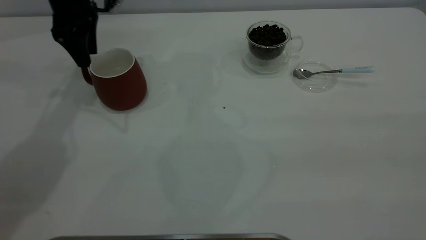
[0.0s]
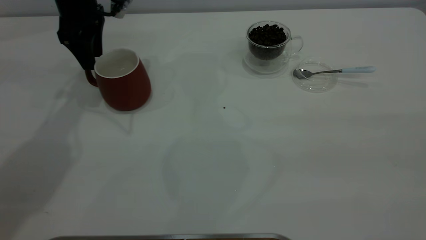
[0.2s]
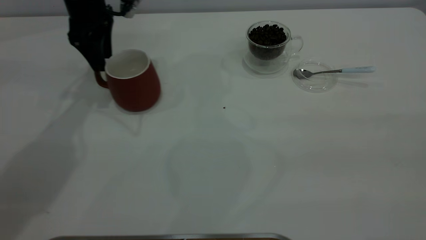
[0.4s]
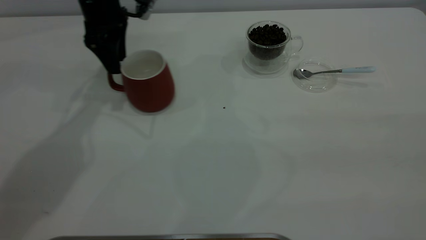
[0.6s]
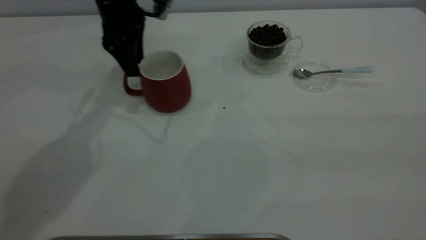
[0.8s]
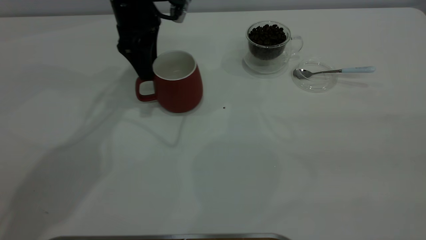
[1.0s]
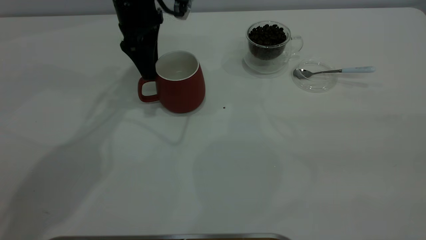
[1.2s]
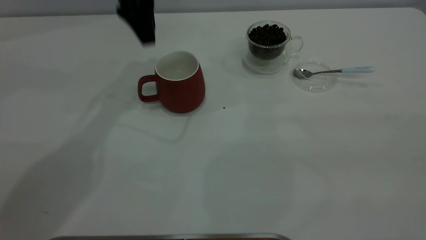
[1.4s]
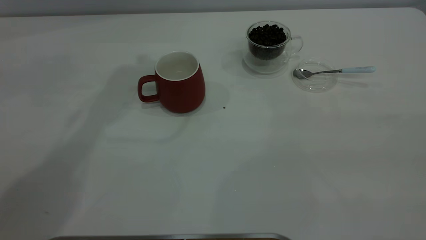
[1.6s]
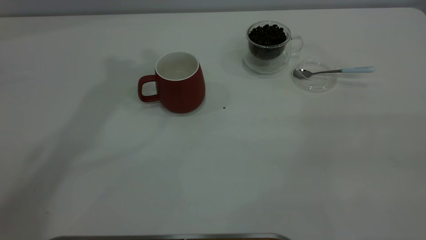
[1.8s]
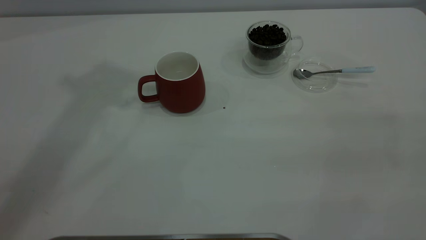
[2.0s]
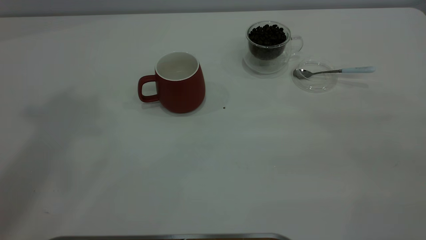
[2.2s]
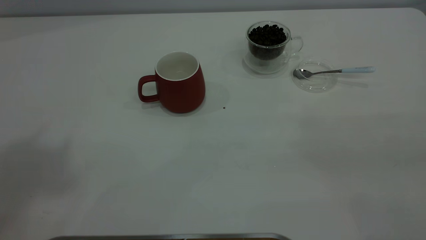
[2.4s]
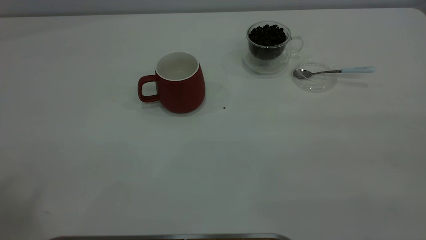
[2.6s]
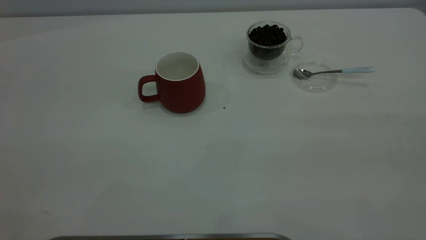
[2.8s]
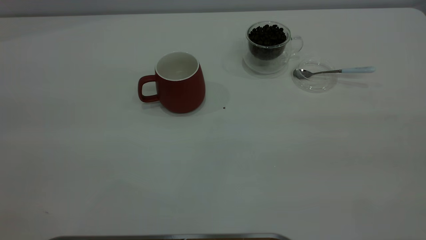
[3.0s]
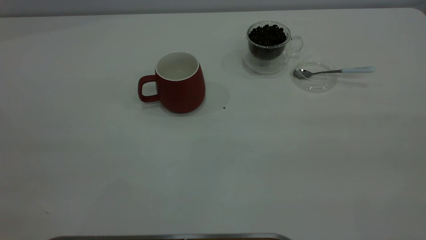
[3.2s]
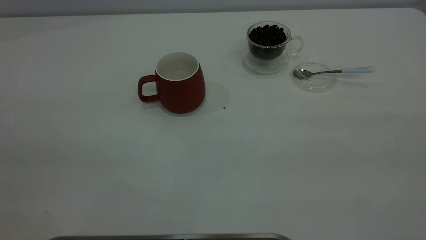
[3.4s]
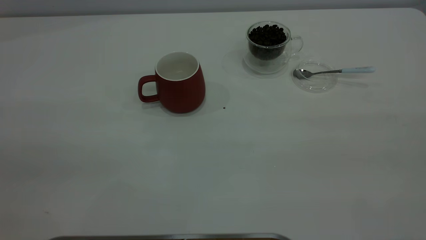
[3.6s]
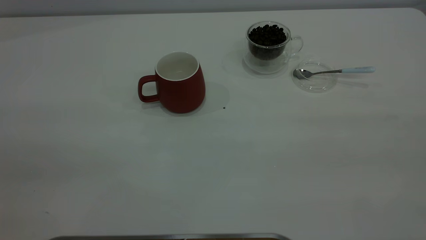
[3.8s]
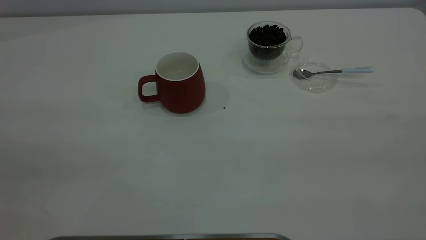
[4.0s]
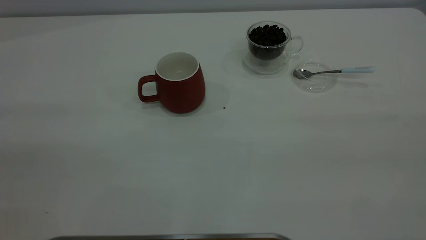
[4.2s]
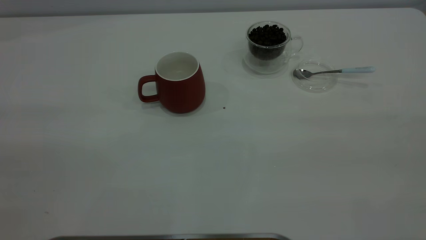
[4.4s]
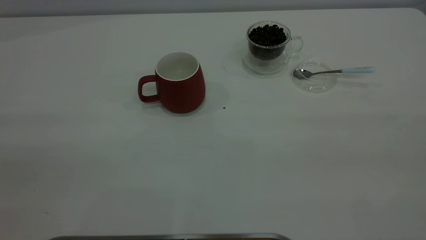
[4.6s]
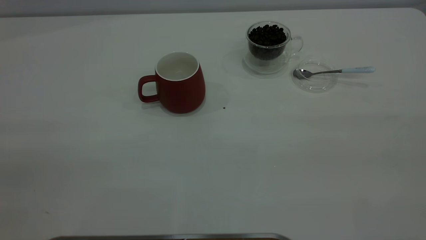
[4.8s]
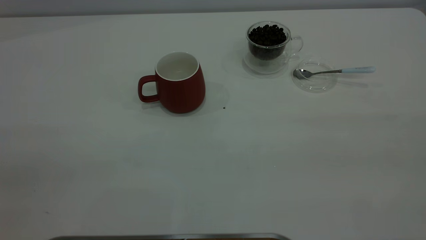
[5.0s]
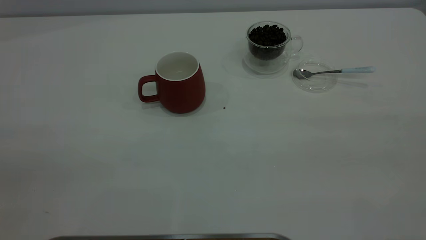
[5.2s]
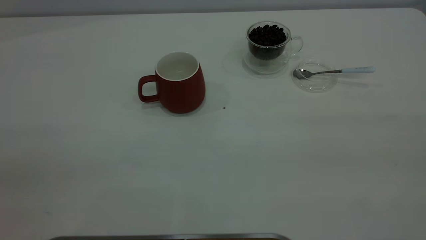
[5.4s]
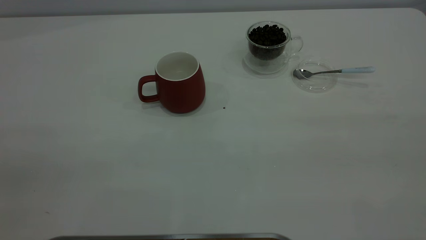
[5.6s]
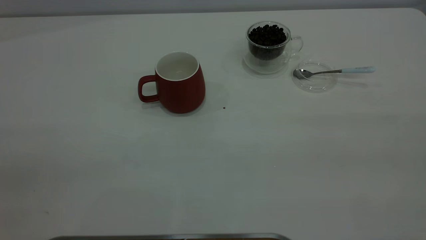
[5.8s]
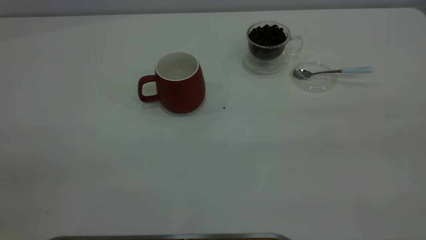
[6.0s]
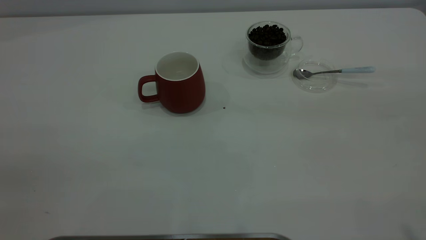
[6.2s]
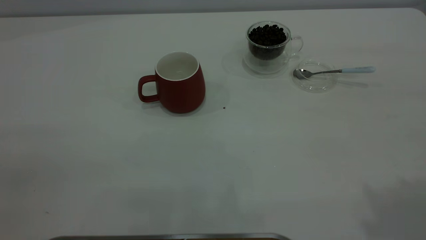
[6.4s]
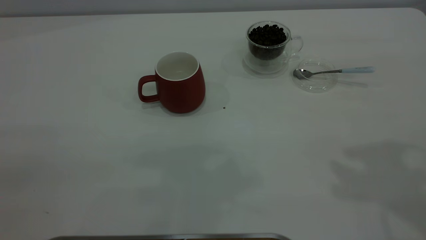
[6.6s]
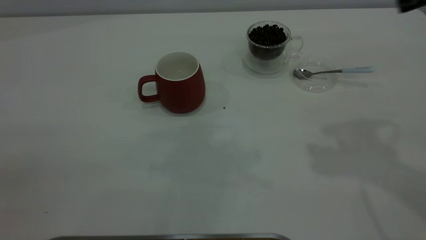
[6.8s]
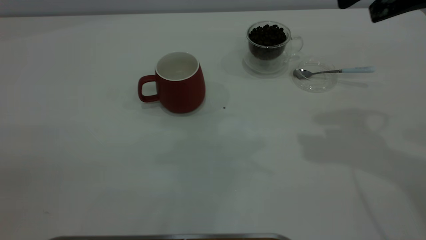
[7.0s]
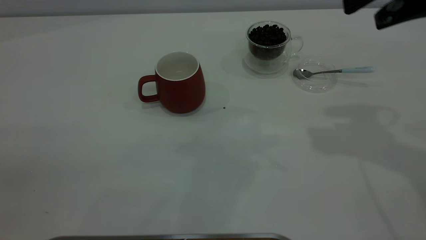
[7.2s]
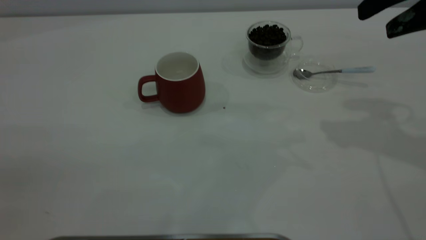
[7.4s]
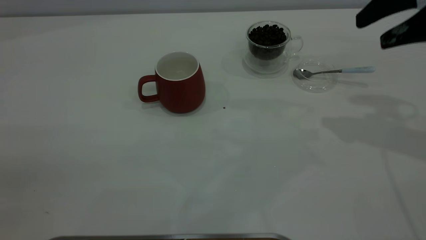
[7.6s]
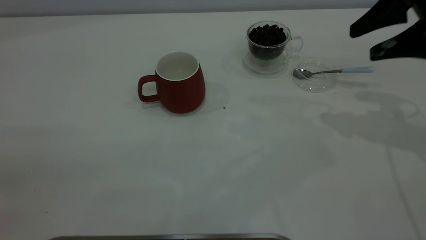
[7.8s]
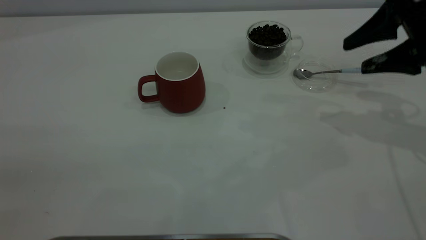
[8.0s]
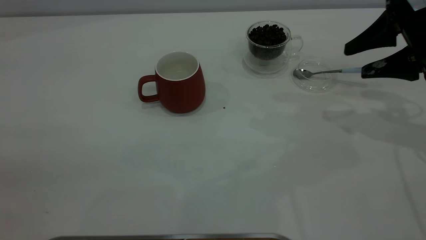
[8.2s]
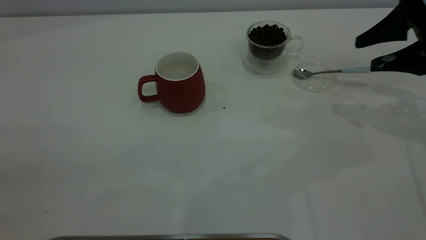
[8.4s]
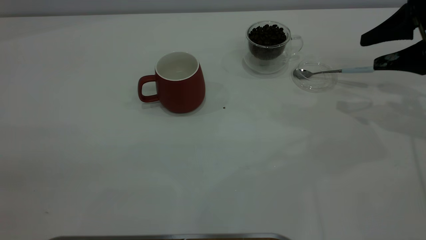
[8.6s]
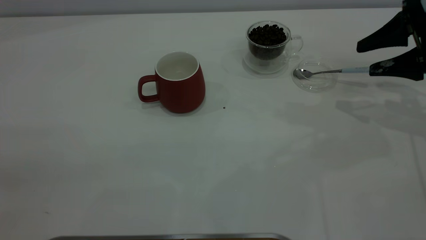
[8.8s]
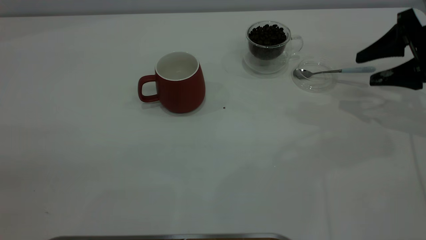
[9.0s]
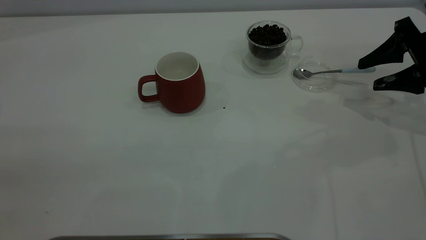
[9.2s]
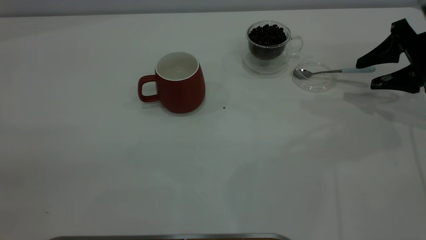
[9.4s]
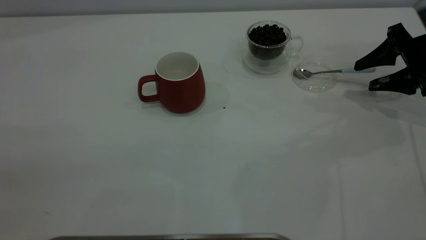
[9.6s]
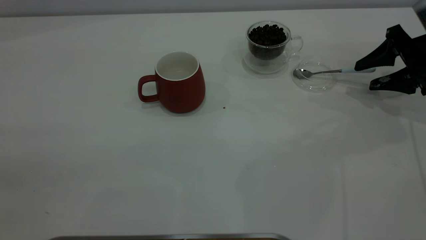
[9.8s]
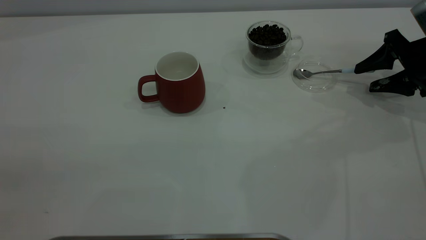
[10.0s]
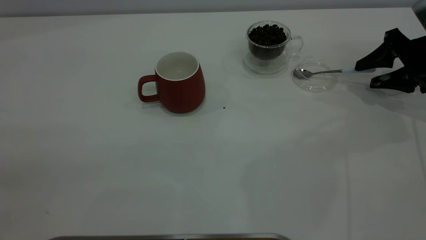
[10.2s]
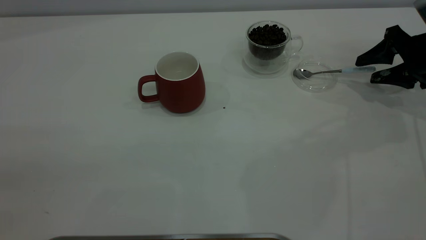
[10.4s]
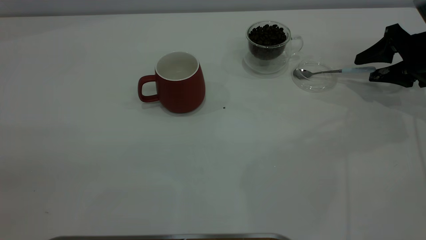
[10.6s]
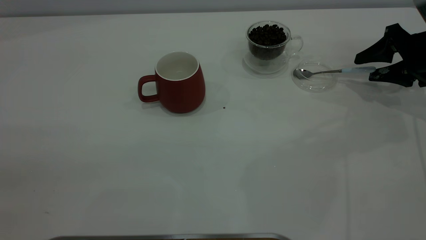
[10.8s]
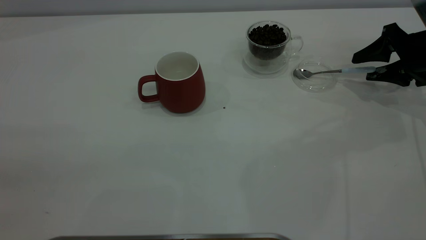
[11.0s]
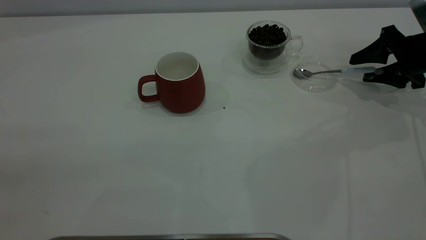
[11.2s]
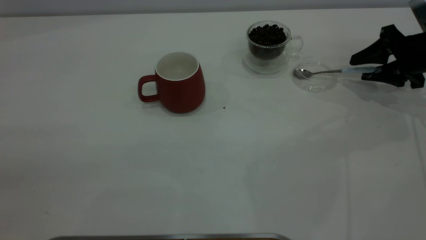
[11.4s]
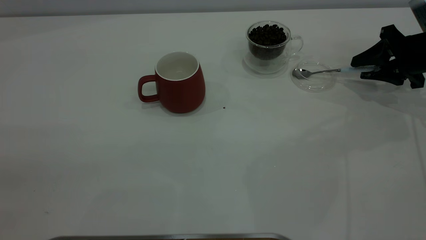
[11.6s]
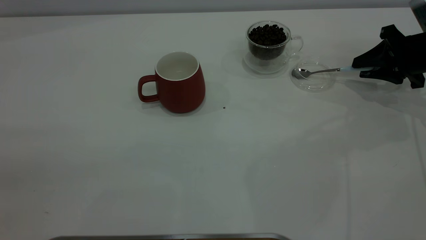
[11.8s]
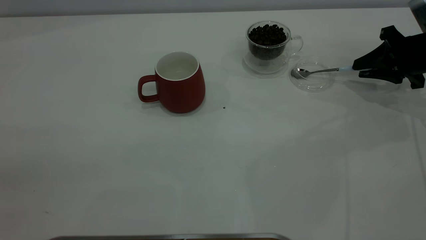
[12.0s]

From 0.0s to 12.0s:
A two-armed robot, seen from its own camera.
Task of the whole recording: the left gripper place the red cup in the center of the table, the right gripper take the blue spoon from the cup lid and scoop out the coffee beans from the coffee cup and put them into the red cup, the right gripper put the spoon back into the cup lid.
From 0.0s to 1.6s: The left gripper moves upward and to the right, some 20 cm.
From 6.0s to 7.6s: The right gripper moves forward and downward, about 35 cm.
From 7.6s to 9.0s: The right gripper shifts roughly 15 cm downward and to the right.
From 9.0s to 10.4s: The right gripper shifts by some 5 cm.
From 10.4s to 12.0s: The right gripper closes up.

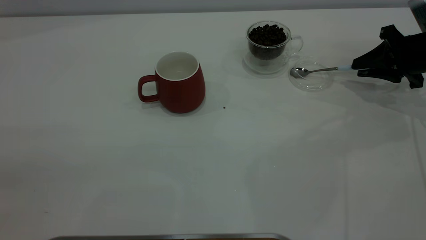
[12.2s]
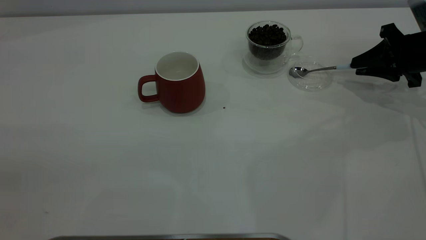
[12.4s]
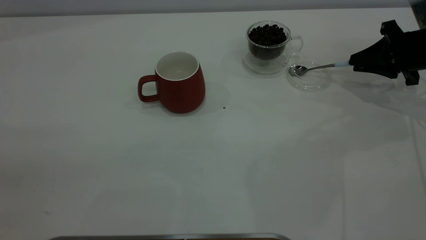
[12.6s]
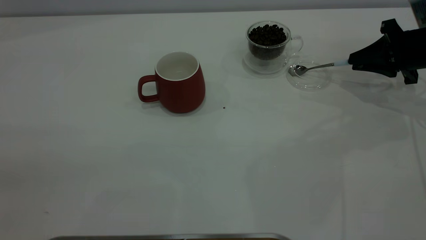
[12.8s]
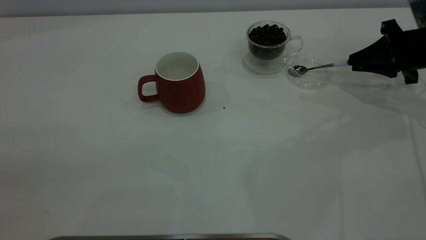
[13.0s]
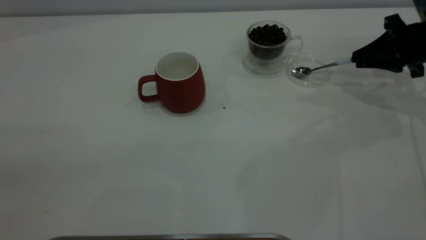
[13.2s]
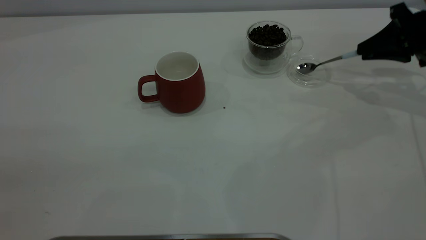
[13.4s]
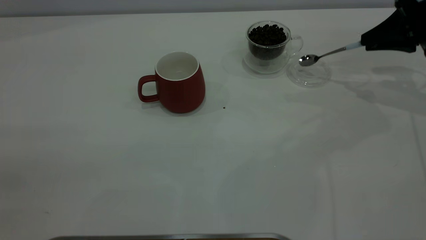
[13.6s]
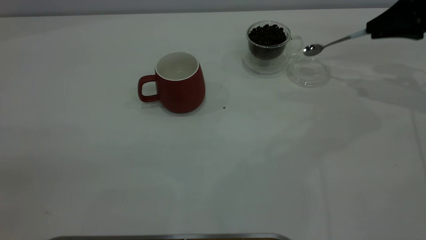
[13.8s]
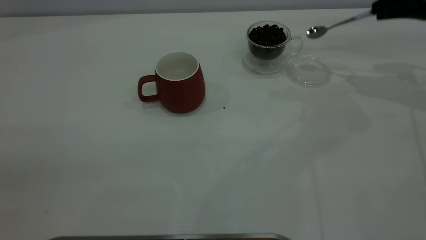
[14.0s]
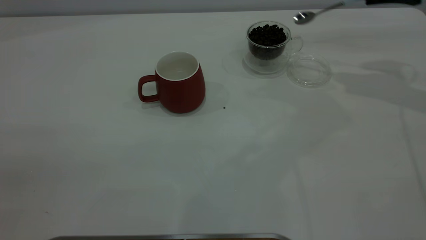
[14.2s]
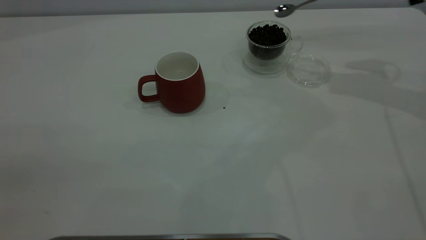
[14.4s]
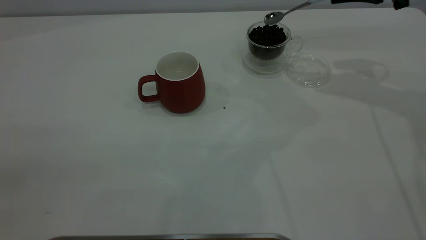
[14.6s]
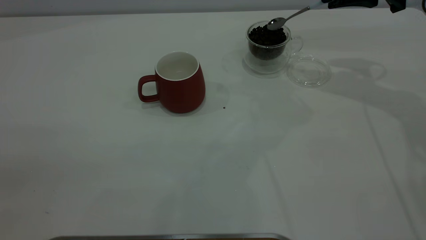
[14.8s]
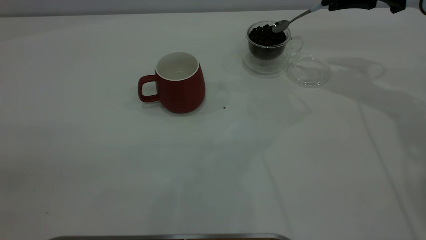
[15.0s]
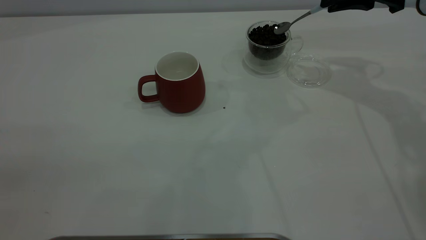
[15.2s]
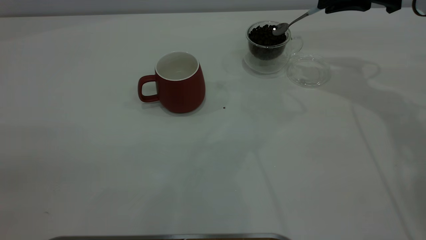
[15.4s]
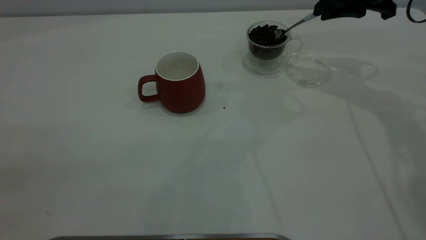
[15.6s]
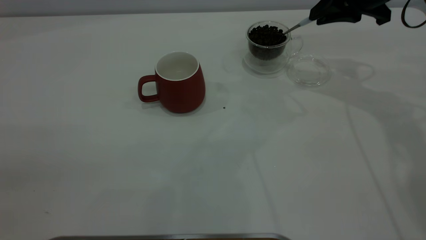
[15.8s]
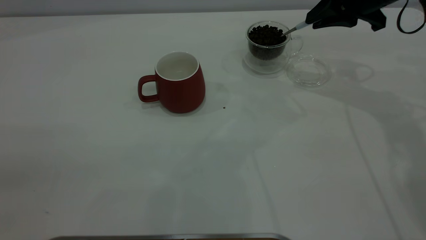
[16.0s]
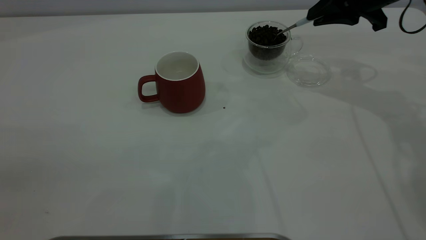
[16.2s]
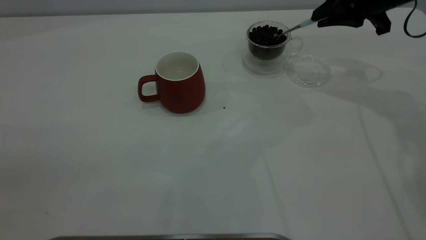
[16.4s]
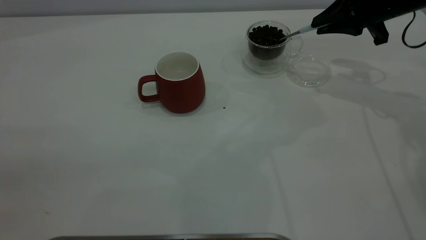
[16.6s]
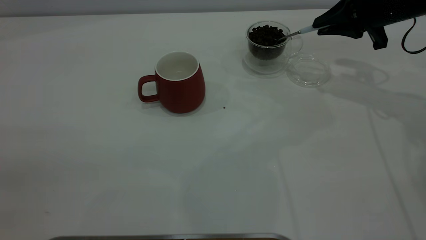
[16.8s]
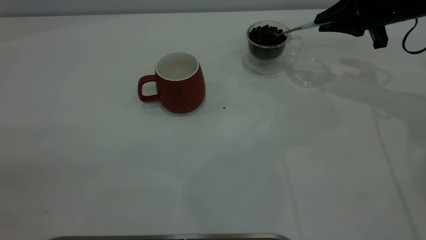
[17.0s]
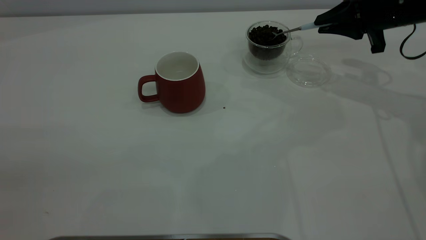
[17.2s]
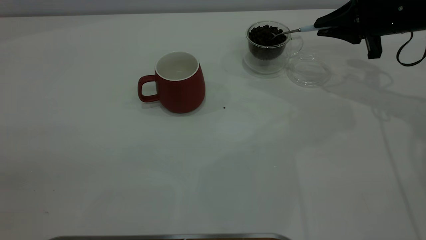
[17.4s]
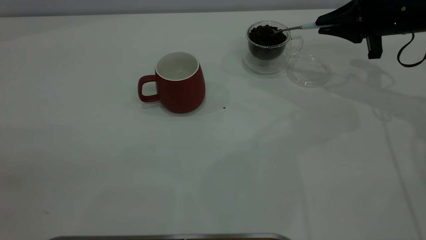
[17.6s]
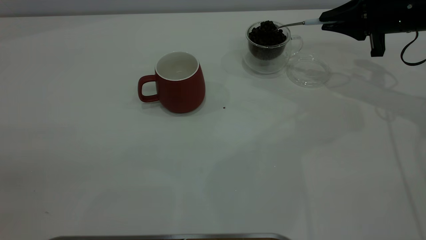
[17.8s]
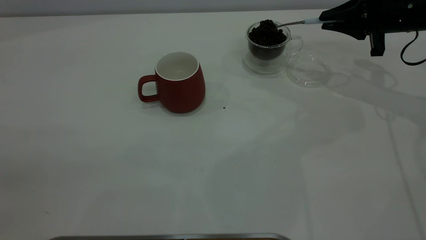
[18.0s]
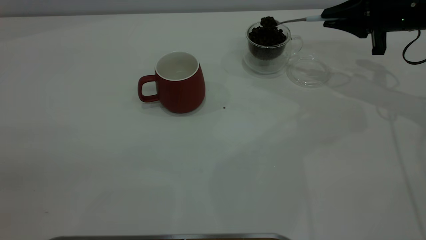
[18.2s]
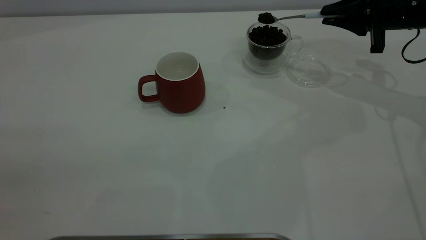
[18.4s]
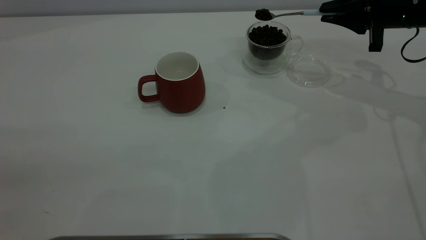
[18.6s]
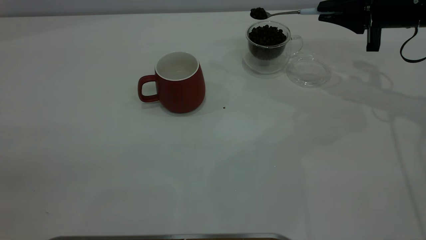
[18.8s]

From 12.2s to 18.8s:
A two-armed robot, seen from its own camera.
Task of the whole recording: the left gripper place the red cup in the center of the table, the right gripper take the blue spoon from the cup lid and scoop out the coffee beans from the coffee cup and put them into the red cup, the right gripper put the spoon back into the cup lid.
From 12.2s to 13.8s: The right gripper moves upward, roughly 10 cm.
From 13.8s to 15.4s: The right gripper is displaced to the left by about 10 cm.
From 15.4s to 17.2s: The right gripper is displaced downward by about 5 cm.
From 17.2s to 18.8s: The grippers stay close to where they were, moving slightly.
